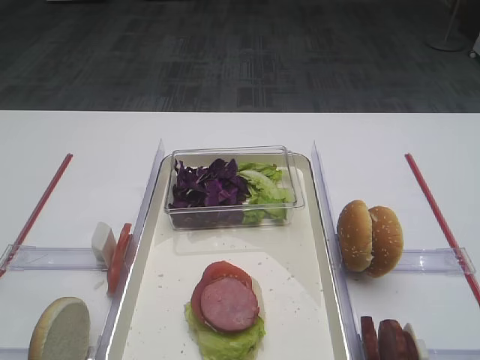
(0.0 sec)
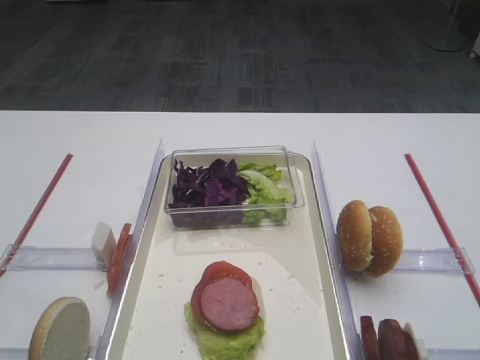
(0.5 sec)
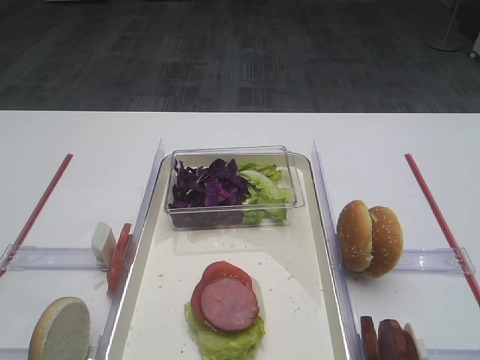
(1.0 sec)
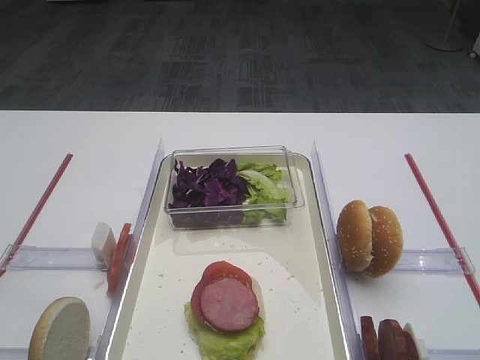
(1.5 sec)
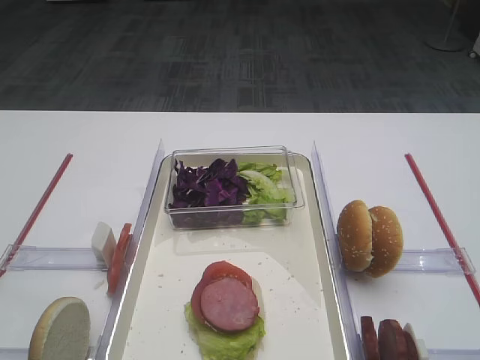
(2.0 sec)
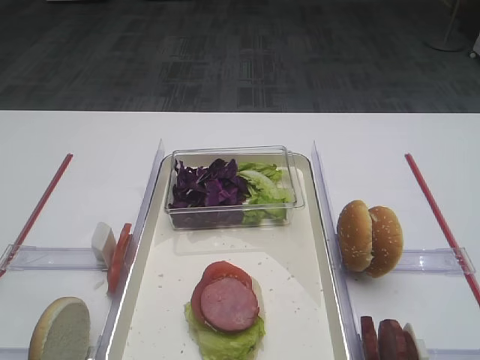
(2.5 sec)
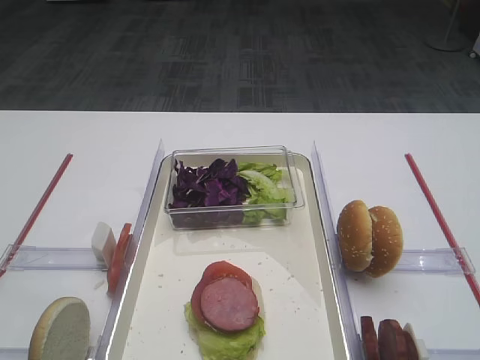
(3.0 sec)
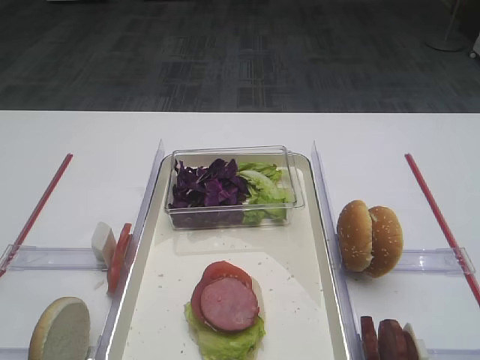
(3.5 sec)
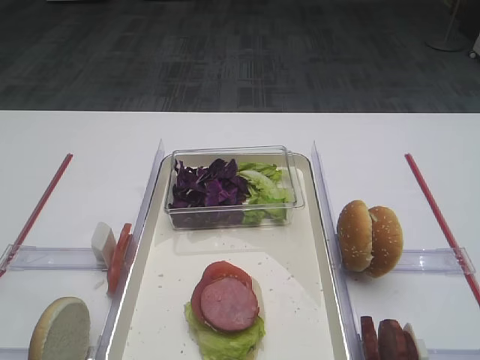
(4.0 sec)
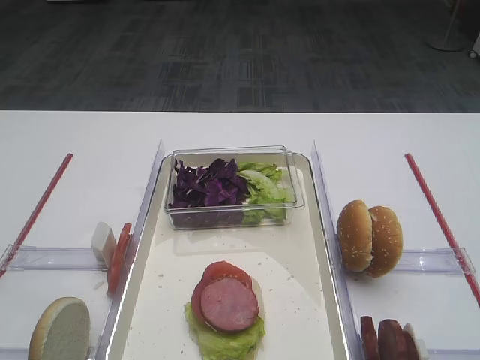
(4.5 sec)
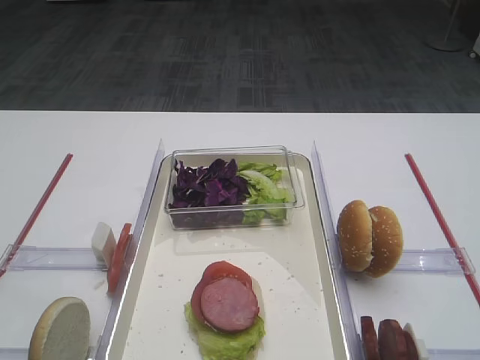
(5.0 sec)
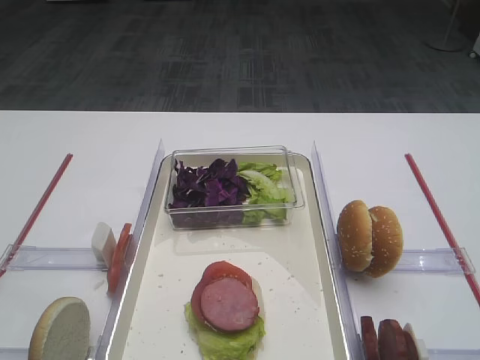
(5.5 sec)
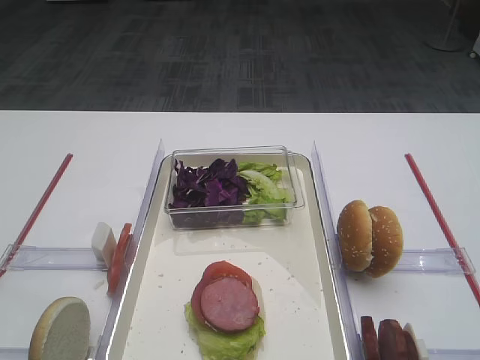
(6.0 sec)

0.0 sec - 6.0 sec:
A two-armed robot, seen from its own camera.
4.0 sec - 6.0 sec: Neither gripper changes place.

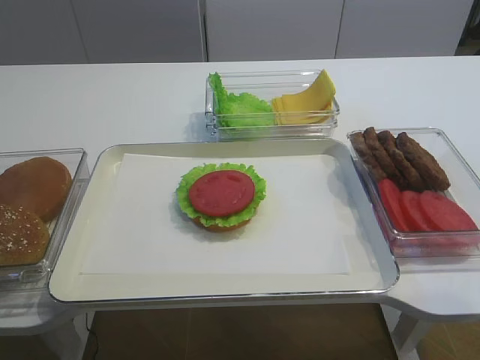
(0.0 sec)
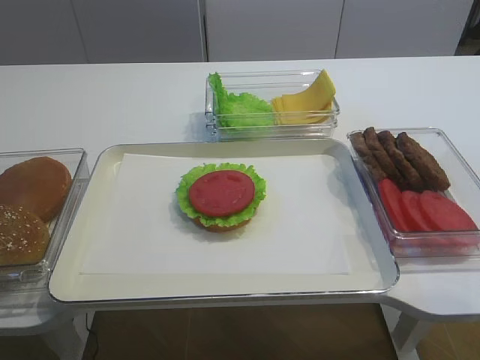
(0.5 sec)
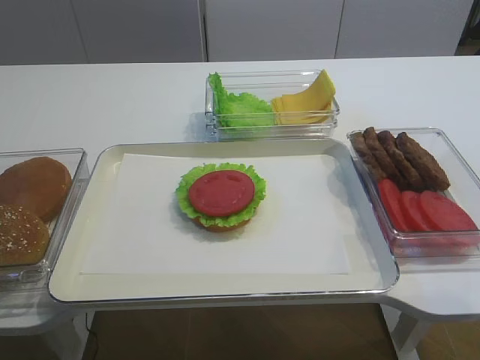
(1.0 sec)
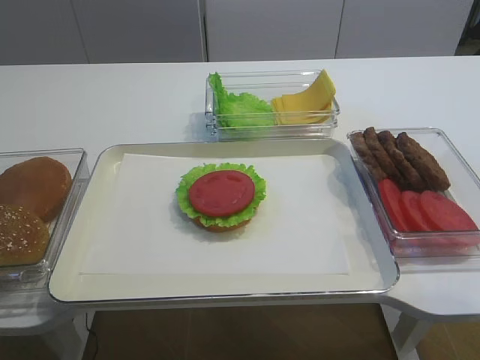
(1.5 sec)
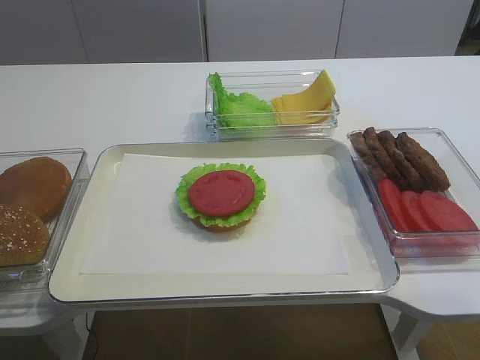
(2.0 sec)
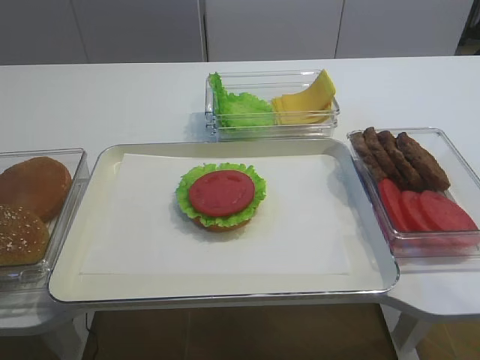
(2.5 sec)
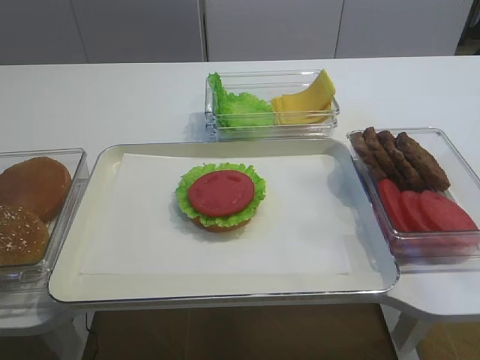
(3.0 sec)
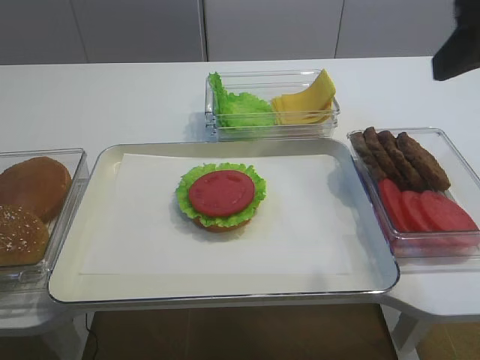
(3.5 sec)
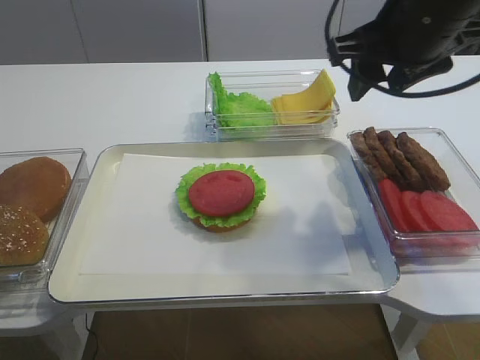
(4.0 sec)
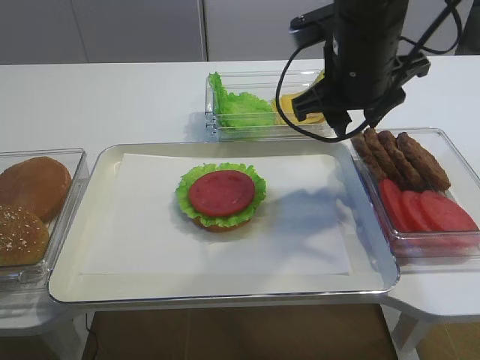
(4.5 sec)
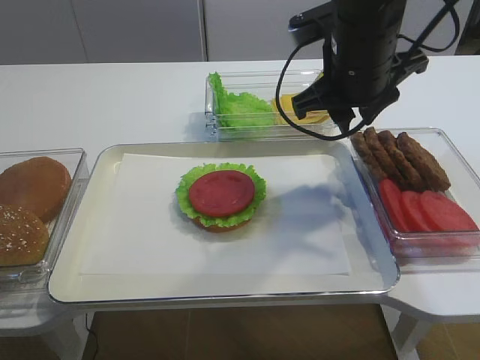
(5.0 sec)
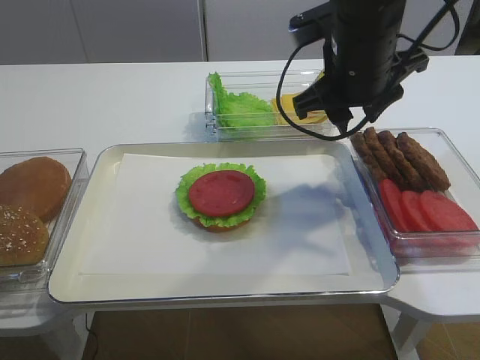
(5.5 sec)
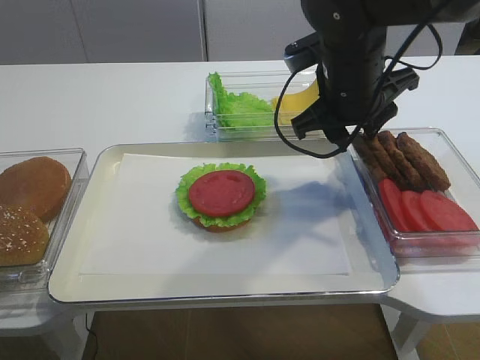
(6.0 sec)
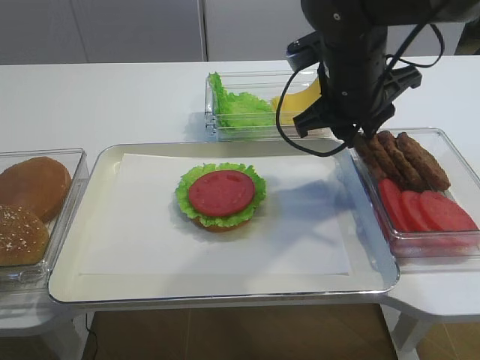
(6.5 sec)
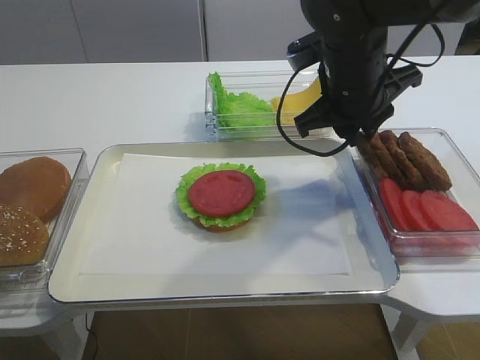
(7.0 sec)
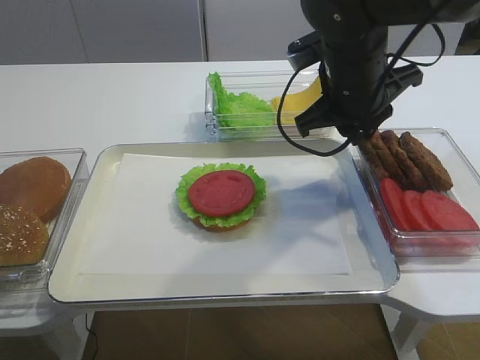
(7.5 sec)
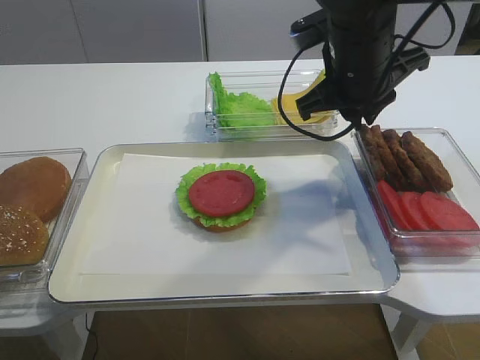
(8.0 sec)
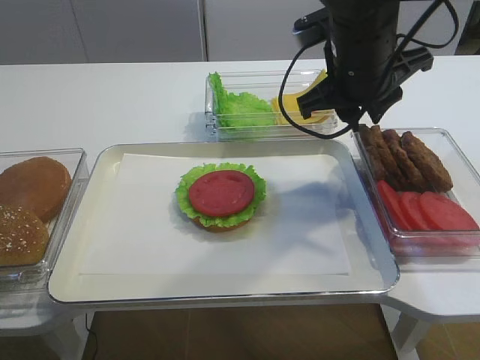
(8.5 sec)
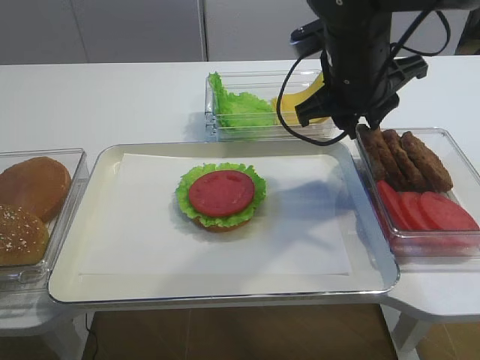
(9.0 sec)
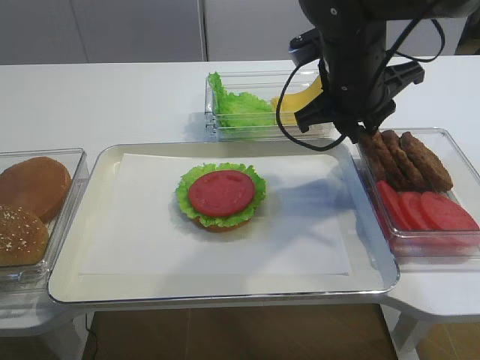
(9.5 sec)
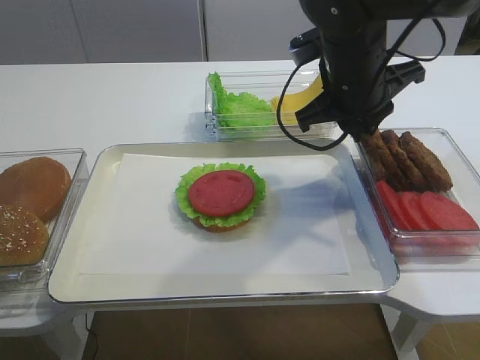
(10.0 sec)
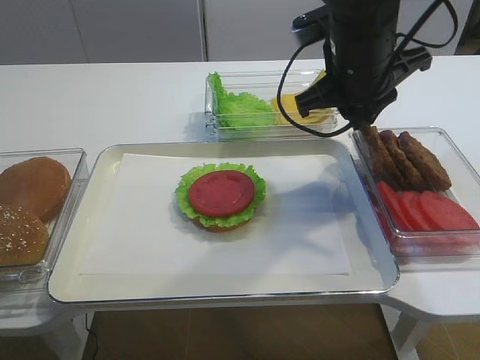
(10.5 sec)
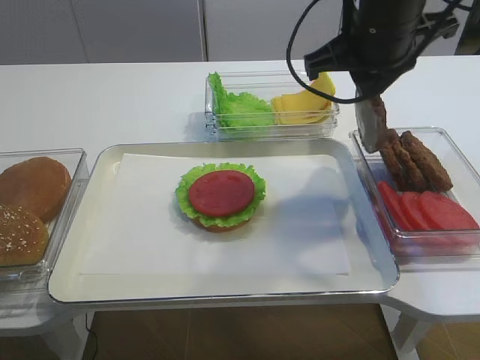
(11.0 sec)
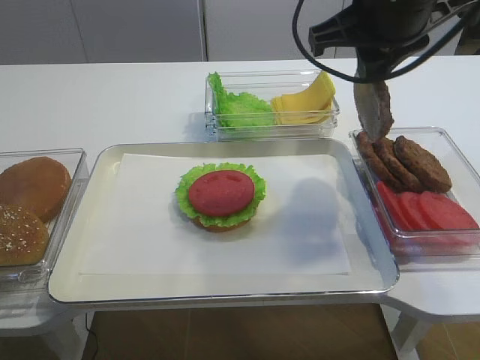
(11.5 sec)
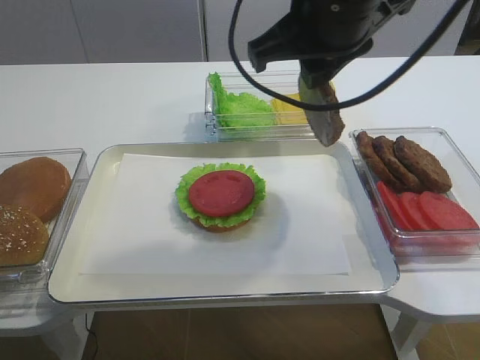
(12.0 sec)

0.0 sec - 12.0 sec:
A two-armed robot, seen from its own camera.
Step, 0.0 sec - 11.0 sec: Pick up the cutlet with the right gripper.
2.0 sec - 4.0 sec: The right gripper goes approximately 35 cm forward and to the left.
4.0 sec - 6.0 sec: The right gripper moves downward, roughly 10 cm.
6.0 sec - 8.0 sec: The right gripper closes up.
8.0 sec - 10.0 sec: The grippers stay close to where they were, moving slightly.
10.0 sec - 12.0 sec: The right gripper is displaced upward and backward by roughly 10 cm.

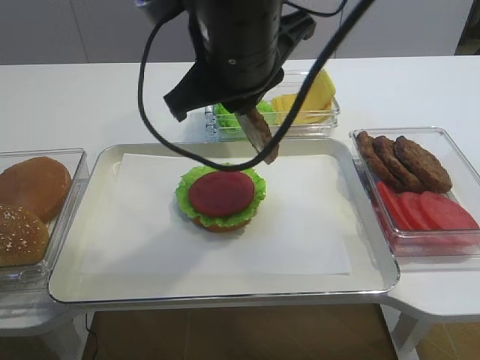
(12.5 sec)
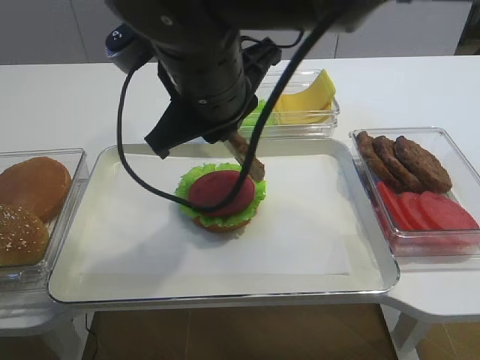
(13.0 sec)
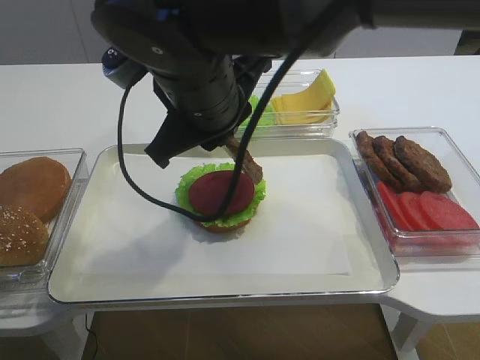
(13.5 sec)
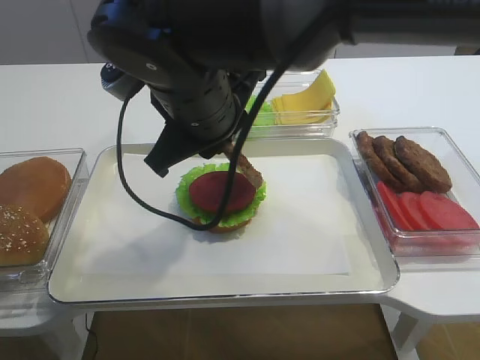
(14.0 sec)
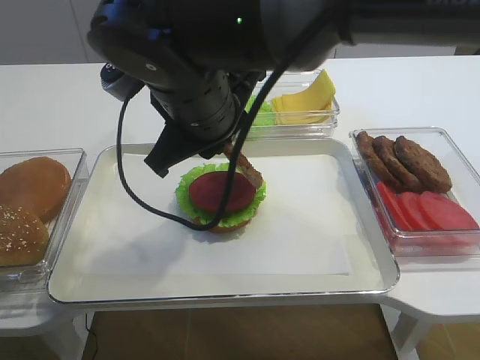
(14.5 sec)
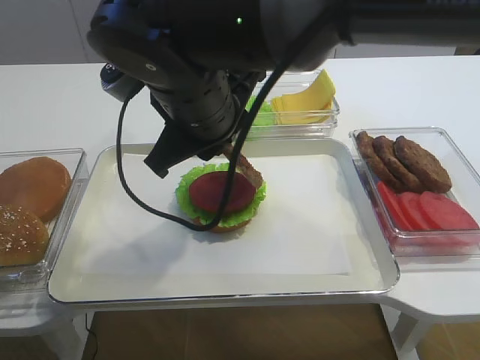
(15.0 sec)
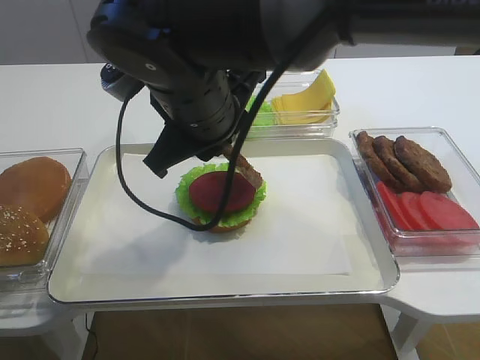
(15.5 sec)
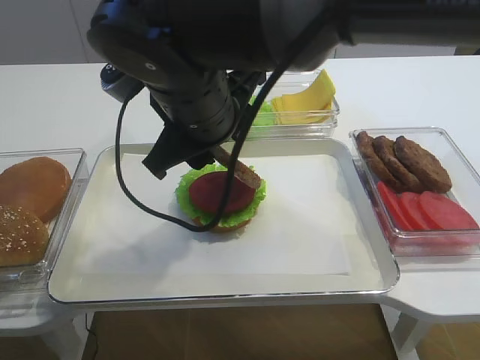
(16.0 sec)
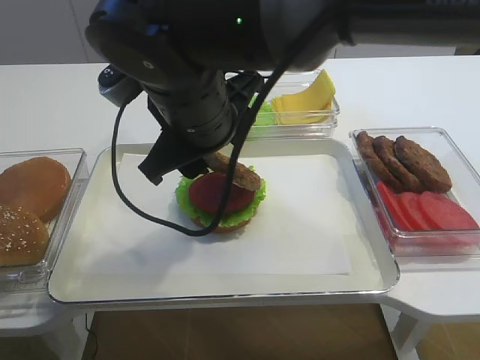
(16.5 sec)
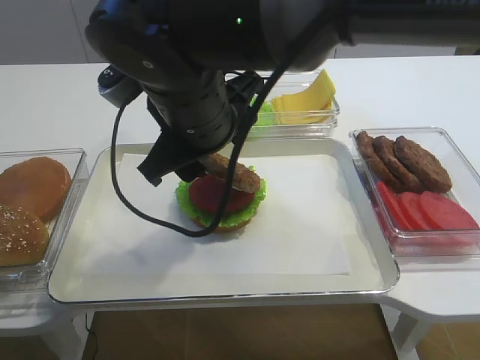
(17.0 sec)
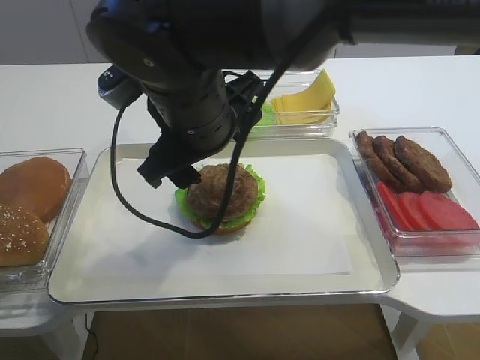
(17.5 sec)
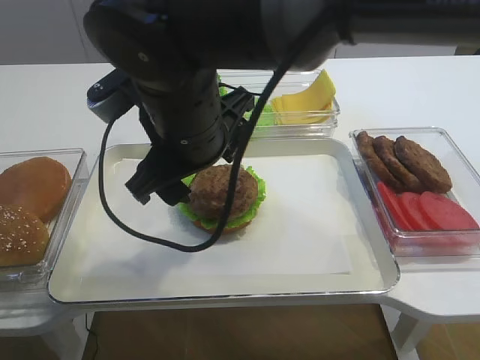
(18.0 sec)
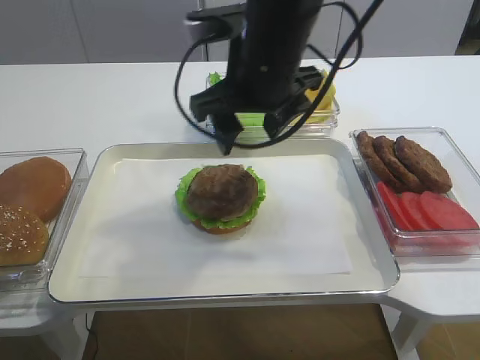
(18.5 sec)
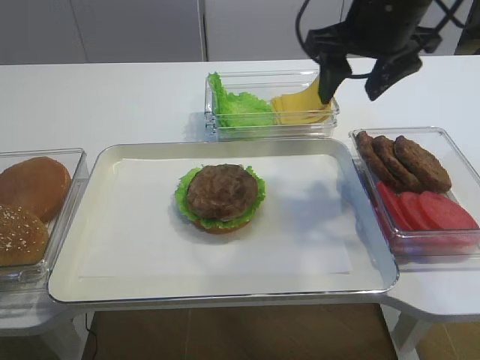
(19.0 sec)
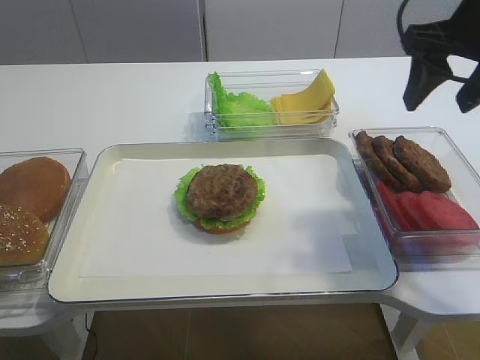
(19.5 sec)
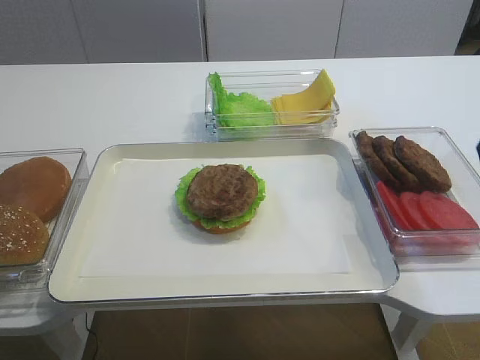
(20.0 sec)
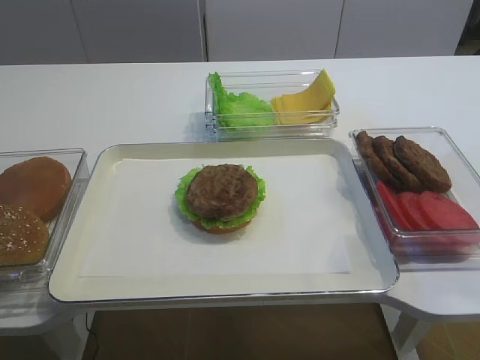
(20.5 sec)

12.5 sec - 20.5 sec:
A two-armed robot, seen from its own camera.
Step, 12.5 sec - 17.5 sec: Place the cutlet on the tomato slice with the right gripper.
12.5 sec - 14.5 sec: The right gripper heads downward, covering about 5 cm.
14.5 sec - 16.5 sec: The right gripper opens up.
16.5 sec - 18.5 sec: The right gripper heads to the right, covering roughly 5 cm.
18.5 sec - 20.5 sec: The right gripper heads to the right and backward, covering about 35 cm.
